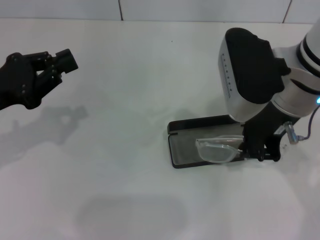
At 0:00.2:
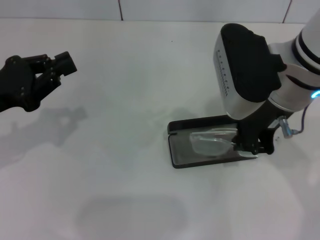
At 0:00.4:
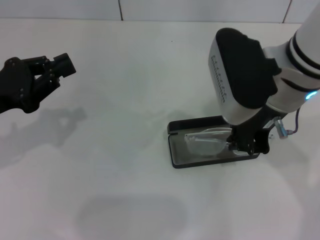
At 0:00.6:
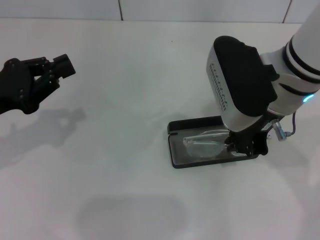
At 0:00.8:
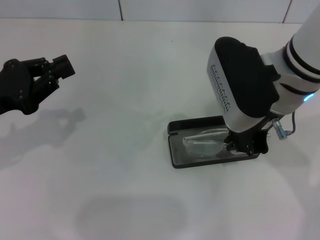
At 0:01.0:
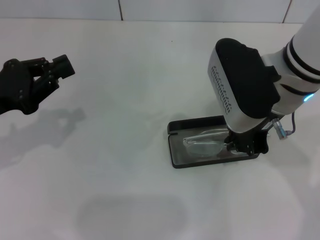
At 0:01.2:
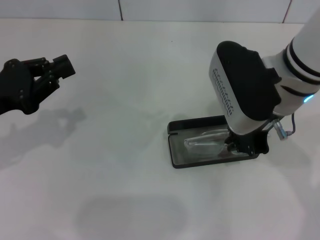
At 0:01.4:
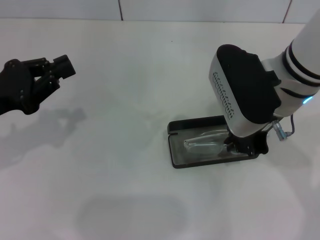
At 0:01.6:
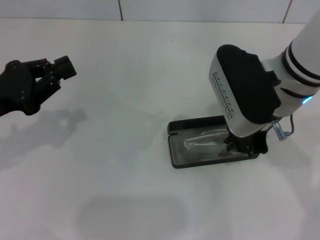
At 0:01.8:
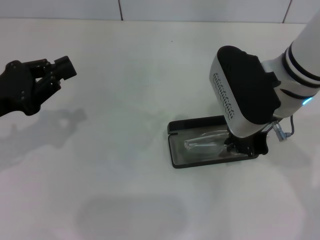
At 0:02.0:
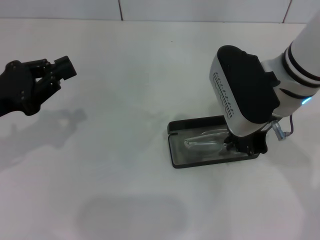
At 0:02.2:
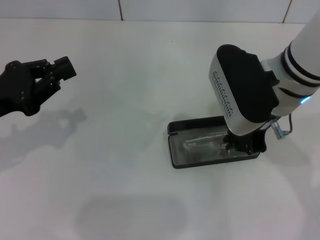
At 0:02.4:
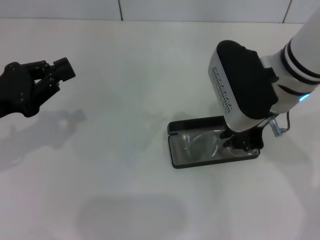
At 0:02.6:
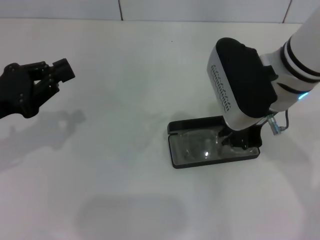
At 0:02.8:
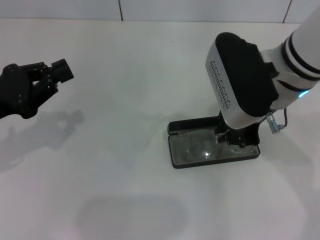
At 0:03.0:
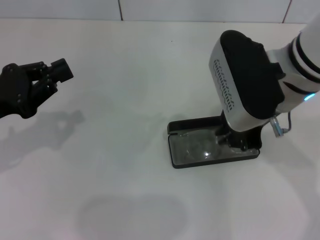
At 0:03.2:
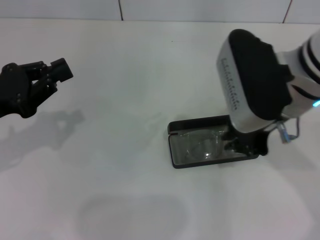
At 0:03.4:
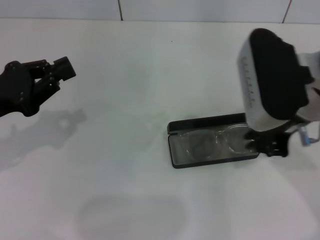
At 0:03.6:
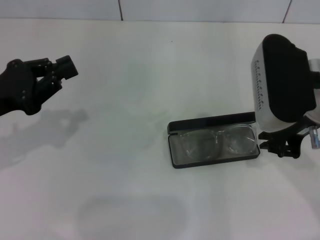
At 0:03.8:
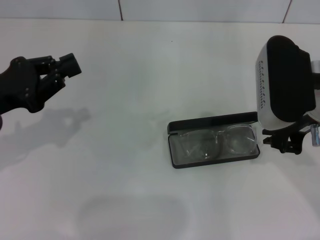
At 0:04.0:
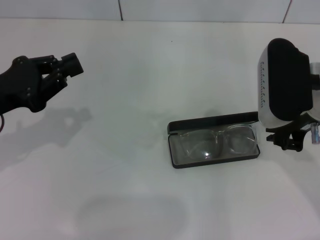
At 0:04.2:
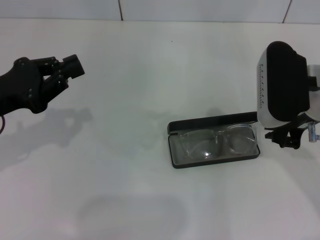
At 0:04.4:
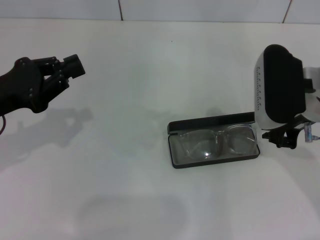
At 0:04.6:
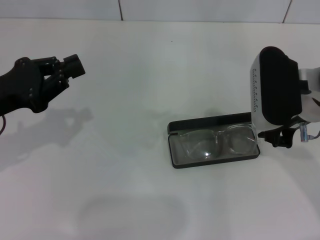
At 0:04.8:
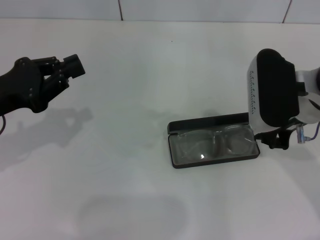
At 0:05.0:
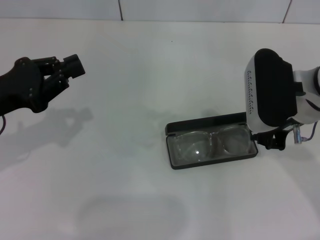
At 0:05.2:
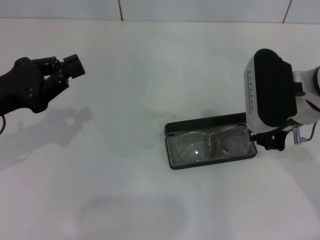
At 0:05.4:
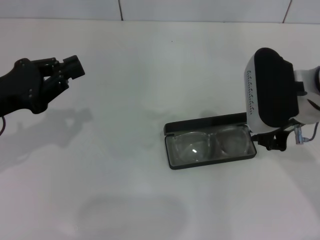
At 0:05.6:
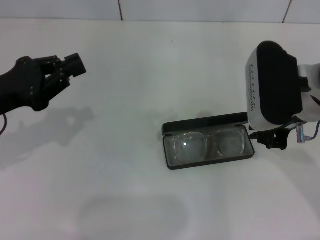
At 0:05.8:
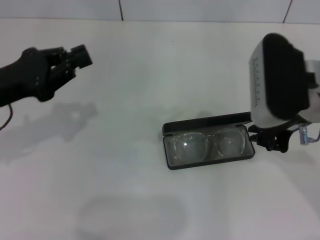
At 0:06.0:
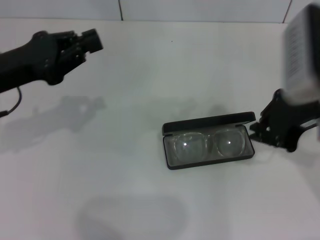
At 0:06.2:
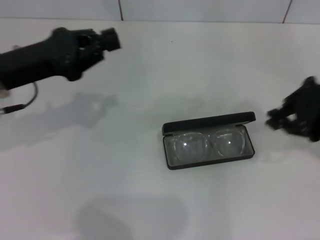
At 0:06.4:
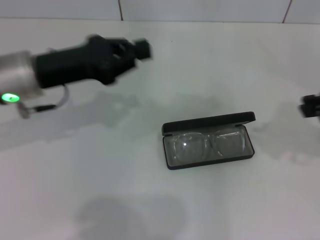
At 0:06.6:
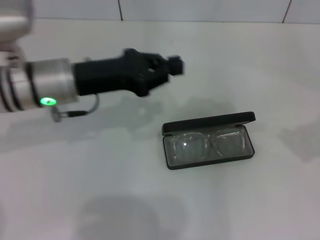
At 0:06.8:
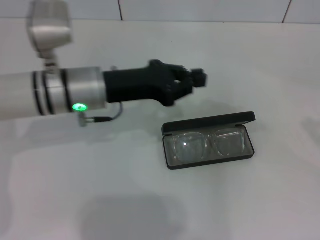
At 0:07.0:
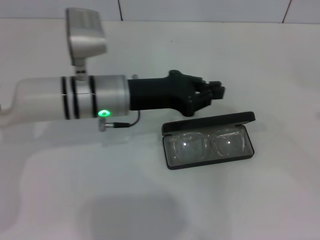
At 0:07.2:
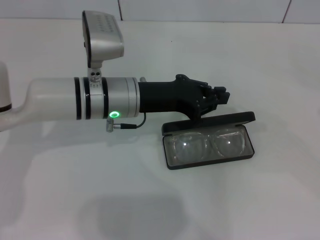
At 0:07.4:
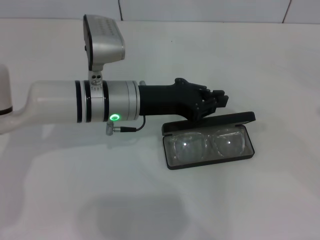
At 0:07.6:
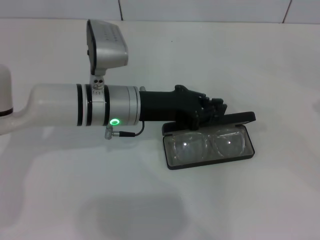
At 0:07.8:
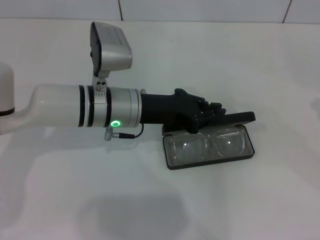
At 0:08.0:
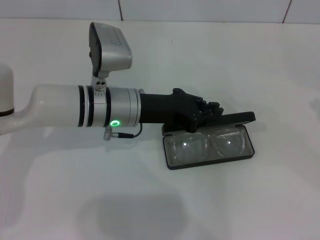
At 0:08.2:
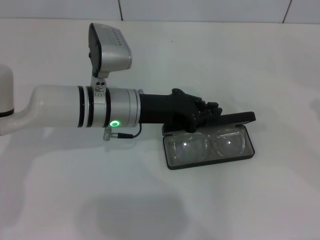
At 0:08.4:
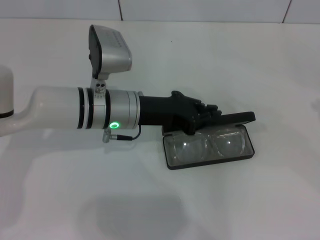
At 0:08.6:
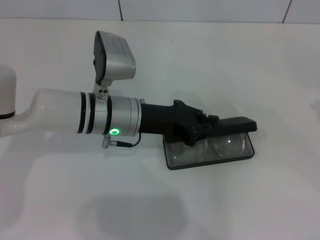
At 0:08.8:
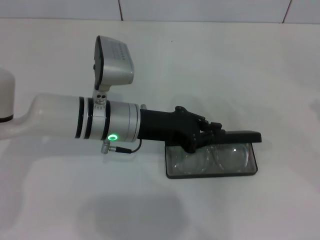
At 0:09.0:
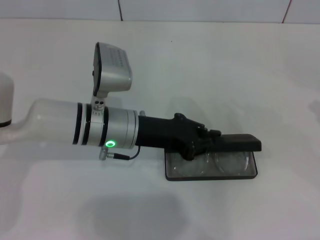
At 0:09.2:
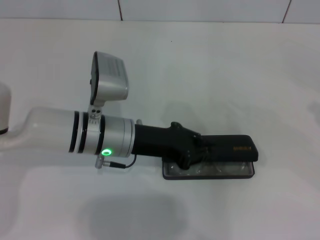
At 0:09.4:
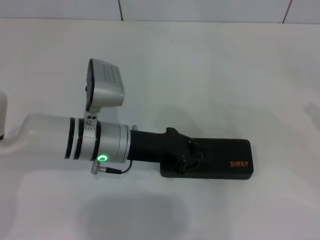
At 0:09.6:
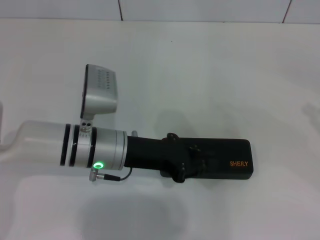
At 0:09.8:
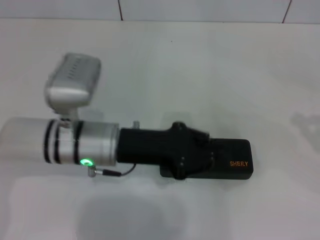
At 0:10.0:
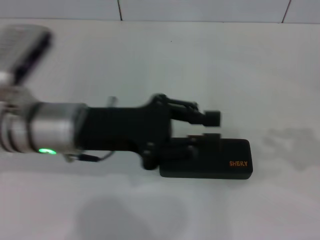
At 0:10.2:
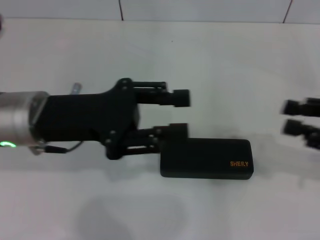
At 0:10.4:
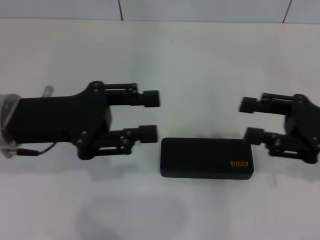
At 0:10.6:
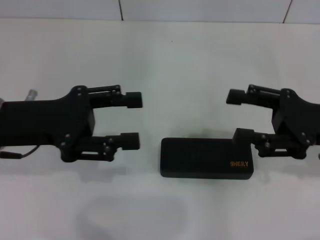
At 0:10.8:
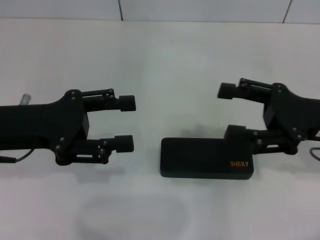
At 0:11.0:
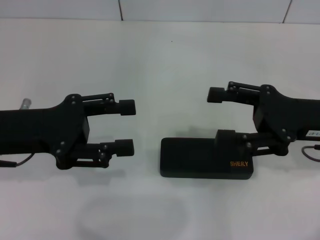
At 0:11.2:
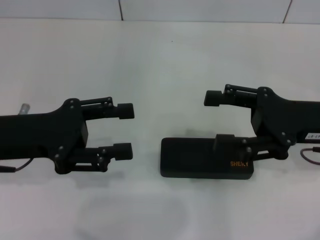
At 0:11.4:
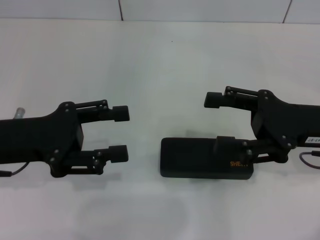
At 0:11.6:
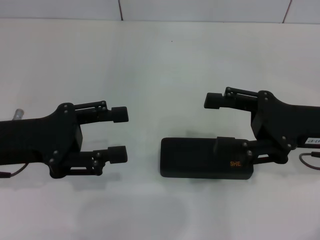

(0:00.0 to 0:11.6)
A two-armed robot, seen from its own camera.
Step, 0:00.0 - 0:02.6: Put the glasses into the case with your right hand.
Step, 0:02.8 - 0:09.6: Close the glasses case with your left hand.
0:00.0 - 0:01.4: There are only small adjustments of the grippers.
0:01.4 - 0:02.8: Neither gripper changes place.
0:02.8 - 0:04.4: The right gripper moves to the right, roughly 5 cm.
0:04.4 - 0:05.8: The grippers stay close to where they were, moving slightly.
0:05.8 - 0:07.2: The left gripper travels to the right by approximately 20 cm. Meanwhile the right gripper shifts some 30 cm to the right.
0:07.2 - 0:08.8: There are only small adjustments of the grippers.
0:08.8 - 0:10.2: The right gripper is displaced to the left by roughly 10 cm; the left gripper moves to the left and upward, approximately 10 cm.
0:10.2 - 0:11.6: The grippers both shift to the left by some 10 cm. The right gripper opens; the left gripper opens up.

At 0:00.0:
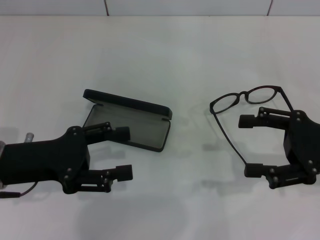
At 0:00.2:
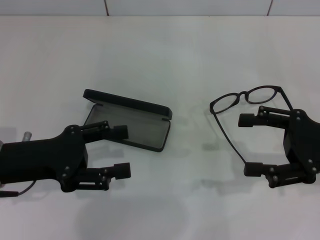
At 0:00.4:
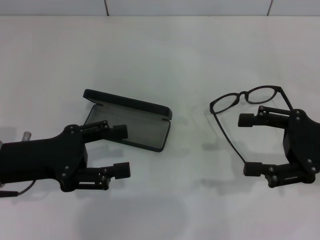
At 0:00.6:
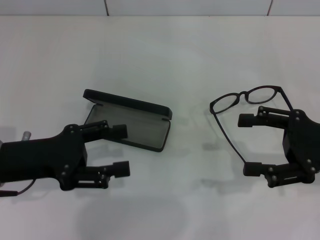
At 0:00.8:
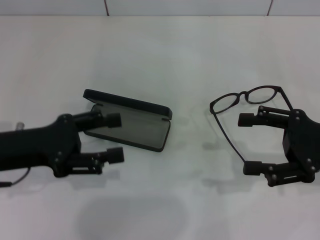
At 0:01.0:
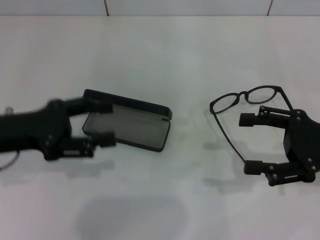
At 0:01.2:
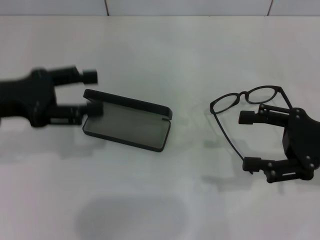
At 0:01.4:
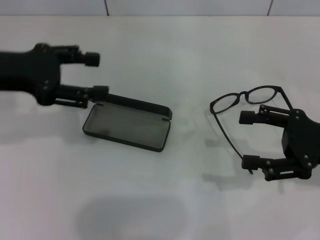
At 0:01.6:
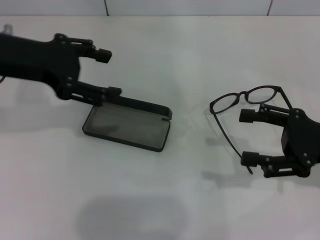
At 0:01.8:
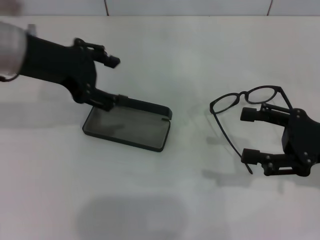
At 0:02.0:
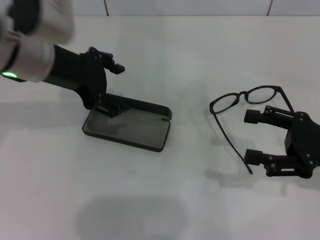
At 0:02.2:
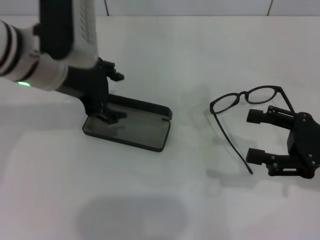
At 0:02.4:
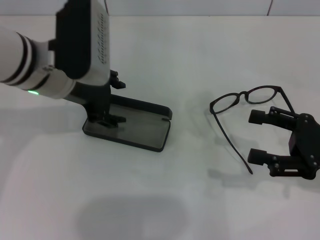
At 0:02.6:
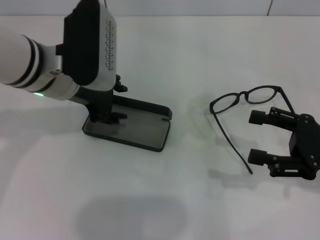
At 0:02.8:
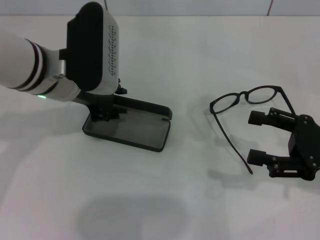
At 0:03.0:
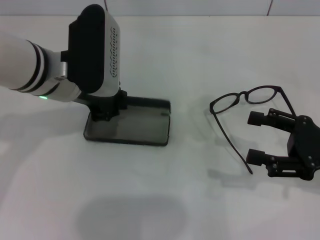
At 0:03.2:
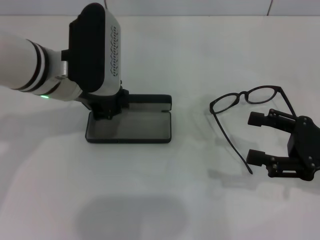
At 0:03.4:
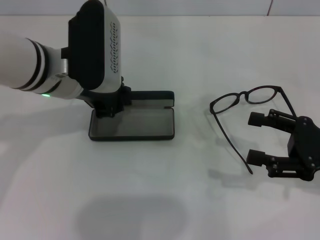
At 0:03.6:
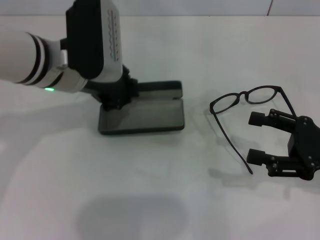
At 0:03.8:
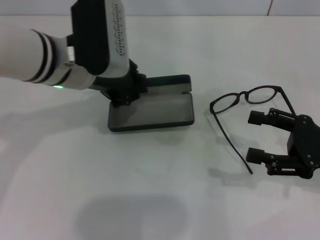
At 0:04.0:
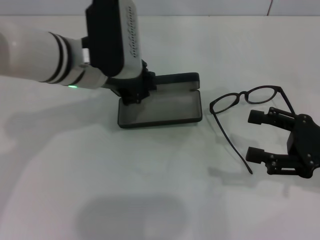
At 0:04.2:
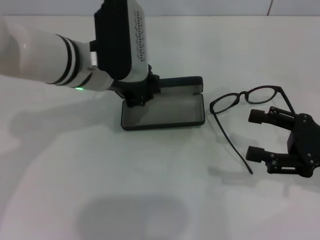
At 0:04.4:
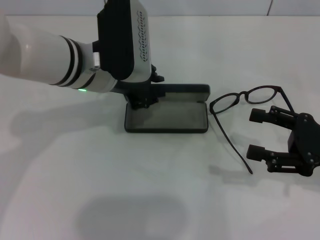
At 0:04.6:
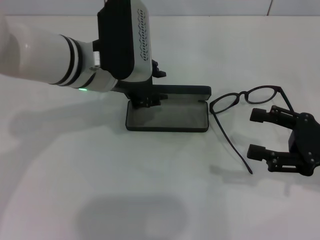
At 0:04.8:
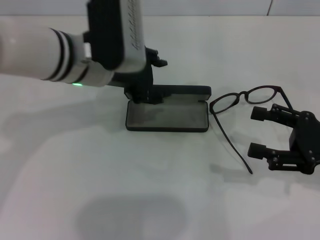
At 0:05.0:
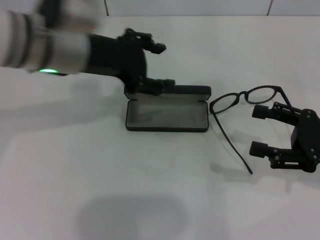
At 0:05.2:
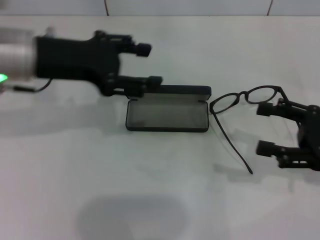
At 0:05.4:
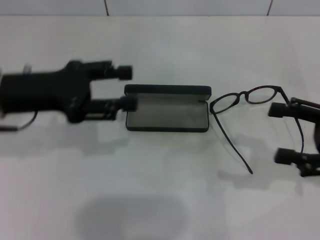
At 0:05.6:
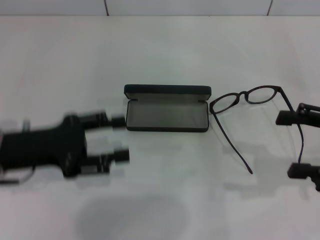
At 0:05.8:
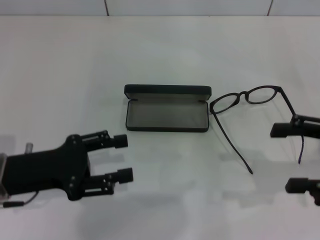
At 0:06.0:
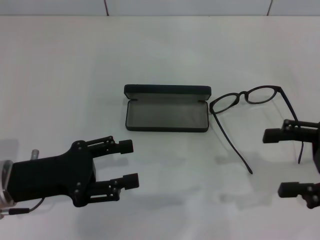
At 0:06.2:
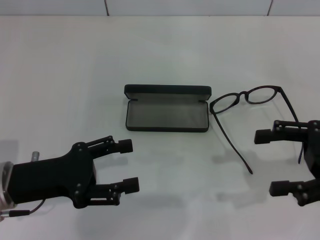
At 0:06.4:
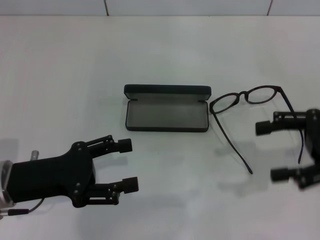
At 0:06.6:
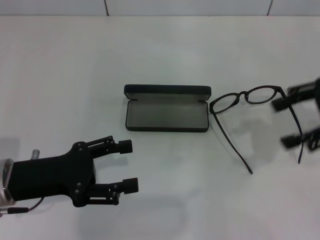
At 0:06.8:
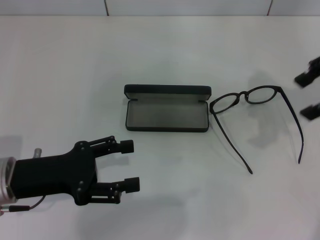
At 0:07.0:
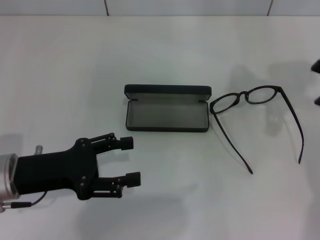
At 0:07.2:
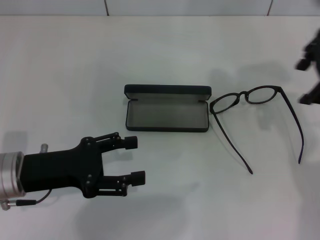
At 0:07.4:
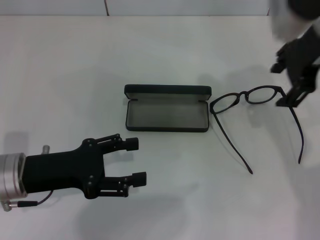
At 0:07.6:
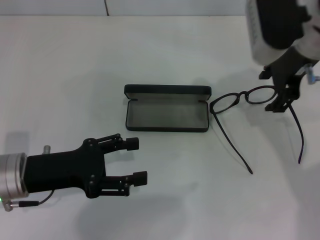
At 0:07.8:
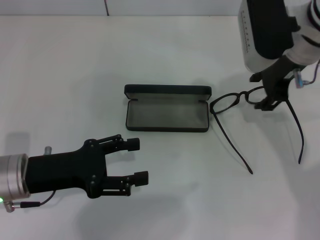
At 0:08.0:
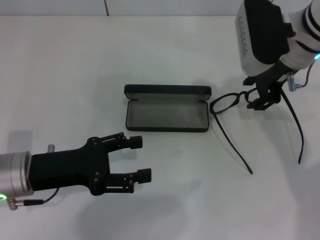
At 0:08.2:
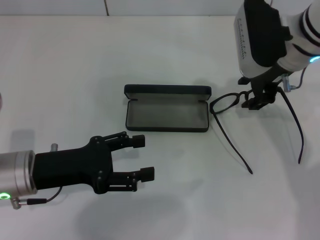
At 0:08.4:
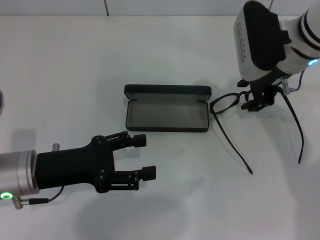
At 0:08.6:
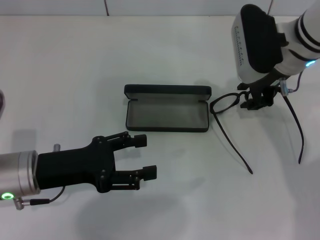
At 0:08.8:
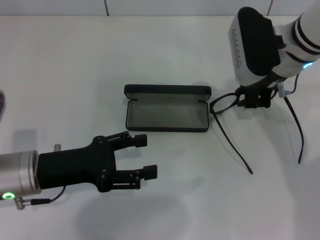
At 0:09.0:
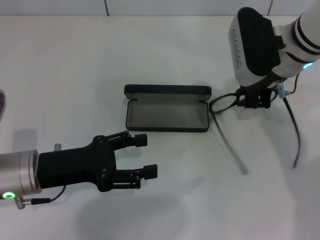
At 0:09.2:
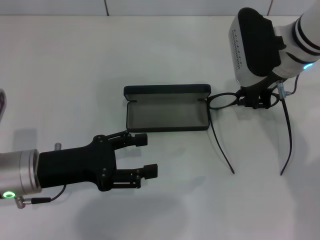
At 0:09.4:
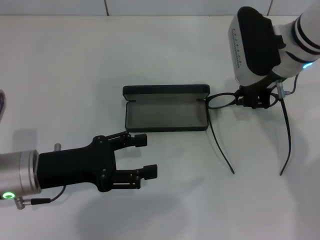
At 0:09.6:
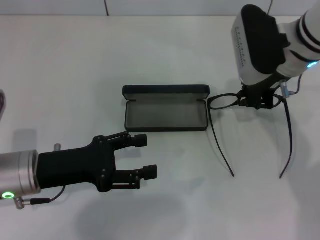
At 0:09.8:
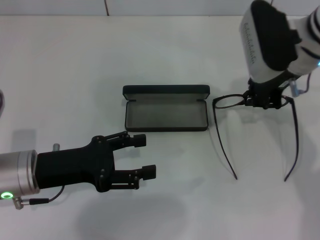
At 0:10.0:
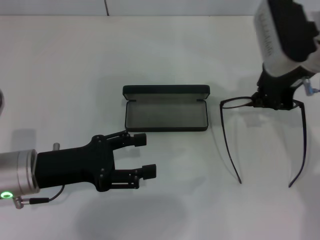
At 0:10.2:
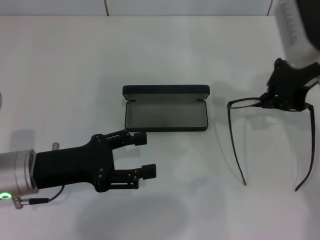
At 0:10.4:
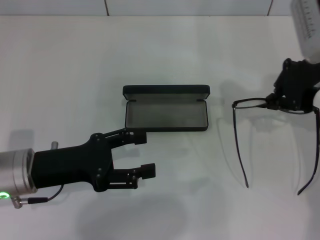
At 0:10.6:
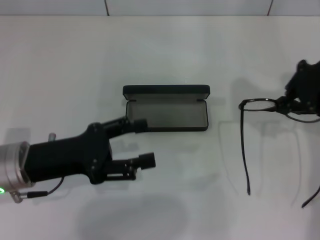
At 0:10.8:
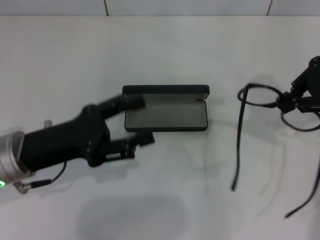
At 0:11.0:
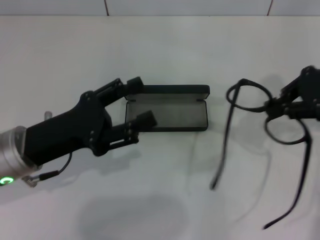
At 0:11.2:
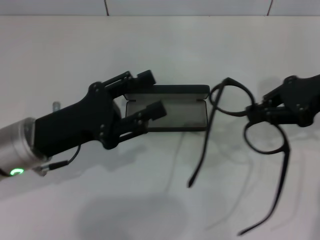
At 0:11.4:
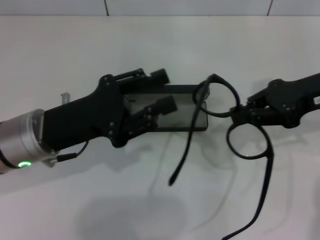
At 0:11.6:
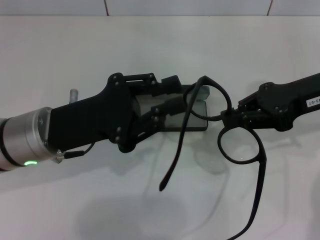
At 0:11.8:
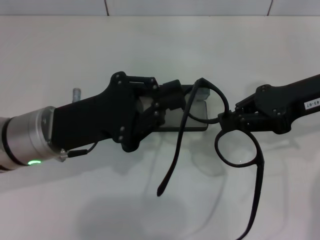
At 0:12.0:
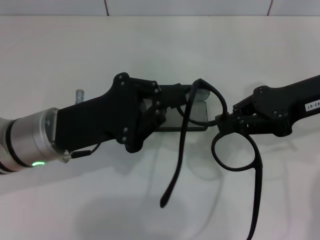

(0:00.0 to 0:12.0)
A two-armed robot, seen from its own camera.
Step, 0:00.0 - 0:03.0: Grab the glasses case with your left hand.
Step, 0:03.2 - 0:04.4: Place the glasses case in the center of the table with your left hand.
Step, 0:04.6 - 0:09.4: Grab the eyeglass frame with your right hand.
0:00.0 - 0:01.6: The left gripper travels upward and forward by about 15 cm.
0:01.6 - 0:03.0: The left gripper travels to the right and downward by roughly 10 cm, and closes its fingers.
0:04.4 - 0:06.0: The left gripper goes approximately 20 cm backward, to the left and downward, and opens up.
0:06.0 - 0:07.6: The right gripper moves to the left, forward and upward, roughly 20 cm.
0:07.6 - 0:09.0: The right gripper is displaced downward by approximately 5 cm, and closes up.
0:09.0 - 0:10.4: The right gripper shifts about 5 cm to the right.
0:10.4 - 0:12.0: The right gripper moves about 5 cm; the left gripper travels to the right by some 5 cm, and closes.
